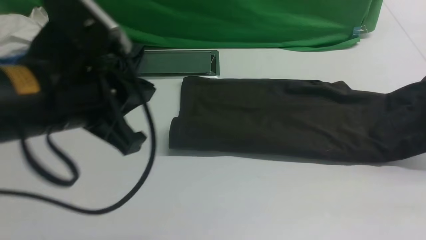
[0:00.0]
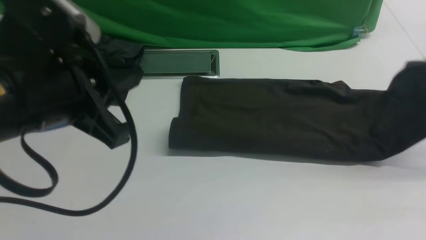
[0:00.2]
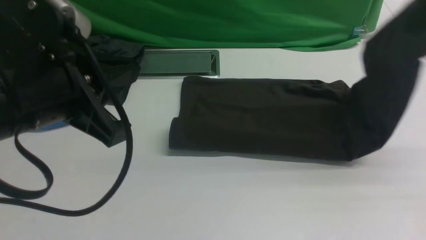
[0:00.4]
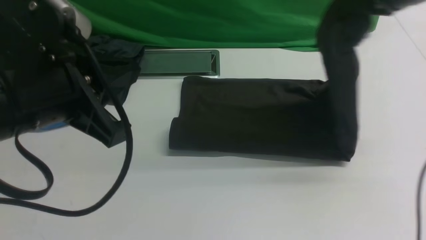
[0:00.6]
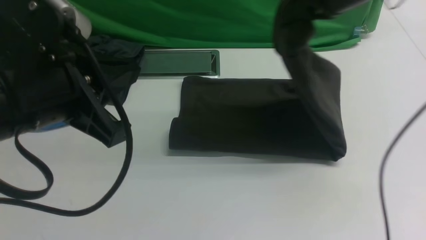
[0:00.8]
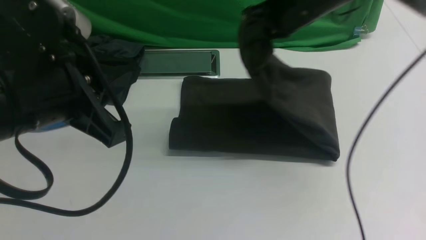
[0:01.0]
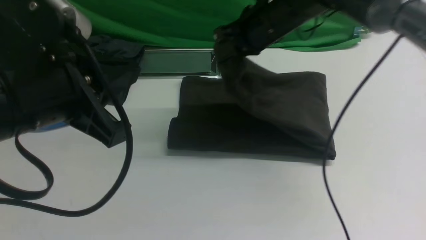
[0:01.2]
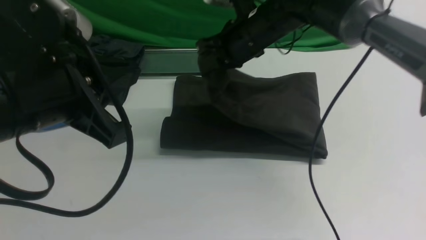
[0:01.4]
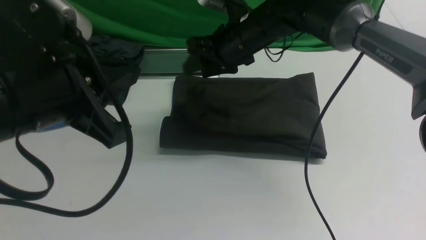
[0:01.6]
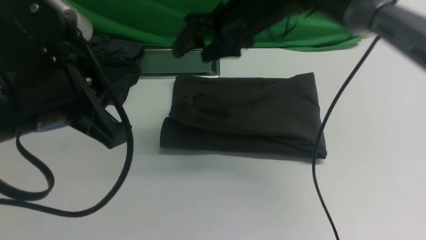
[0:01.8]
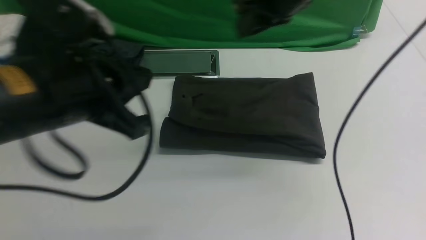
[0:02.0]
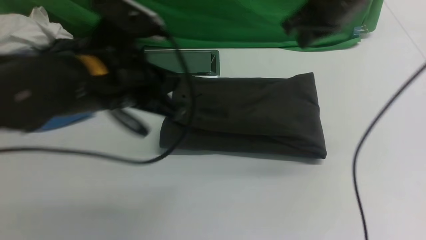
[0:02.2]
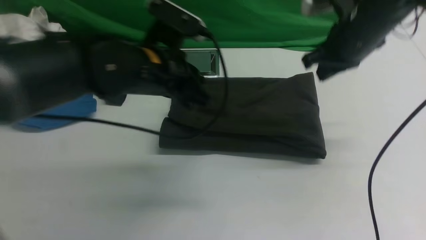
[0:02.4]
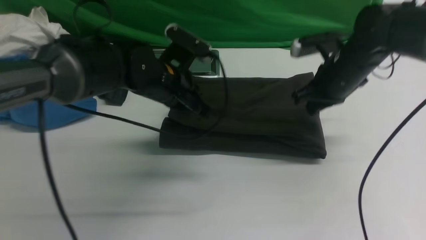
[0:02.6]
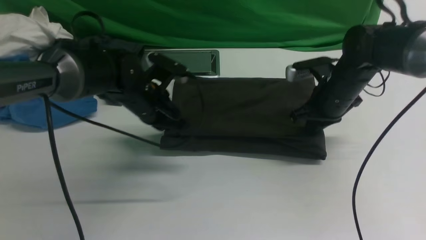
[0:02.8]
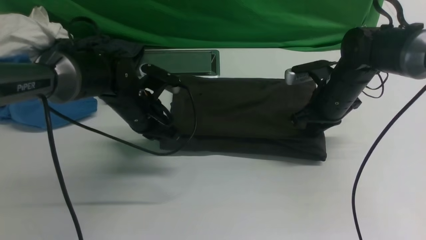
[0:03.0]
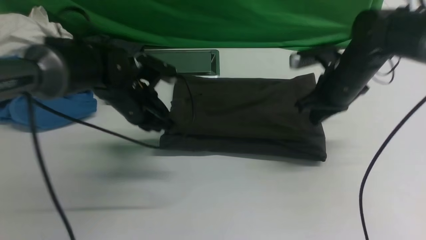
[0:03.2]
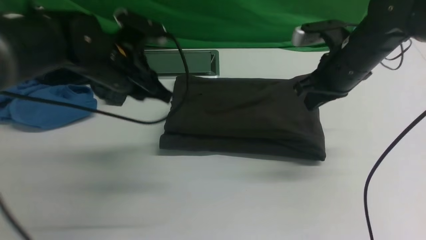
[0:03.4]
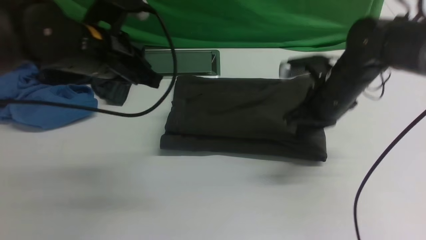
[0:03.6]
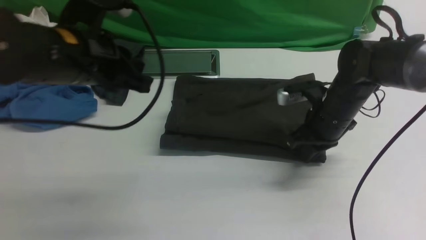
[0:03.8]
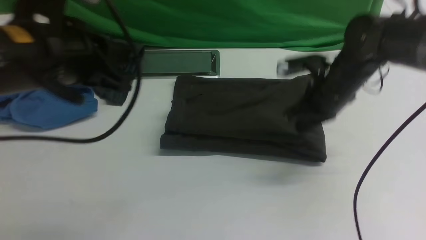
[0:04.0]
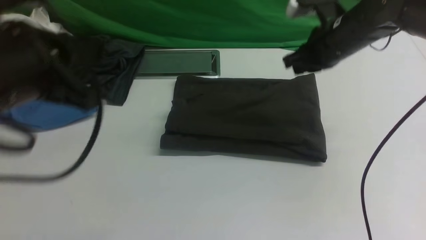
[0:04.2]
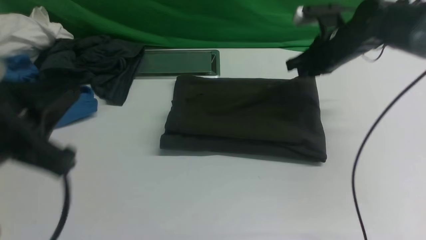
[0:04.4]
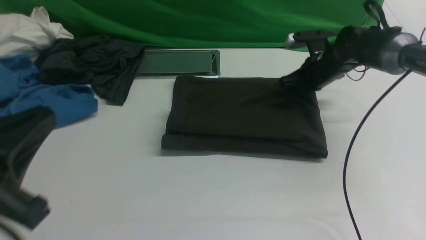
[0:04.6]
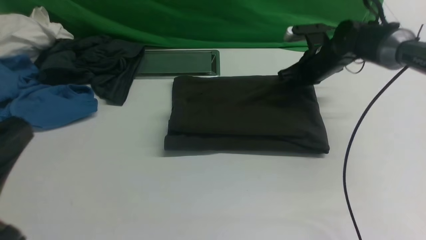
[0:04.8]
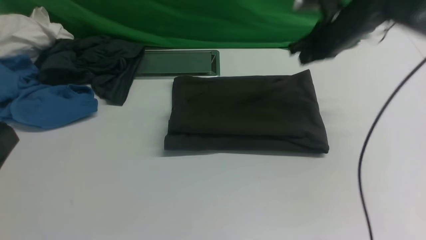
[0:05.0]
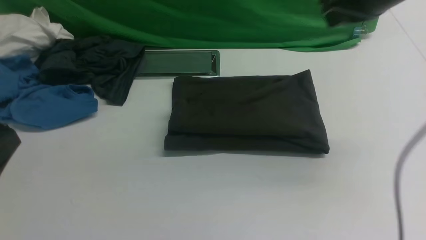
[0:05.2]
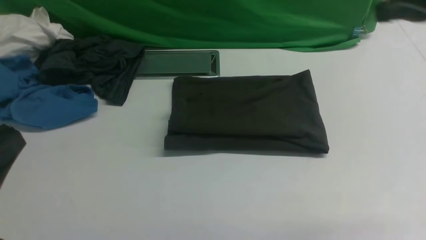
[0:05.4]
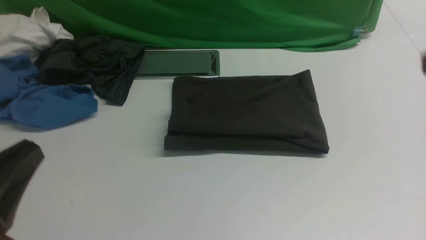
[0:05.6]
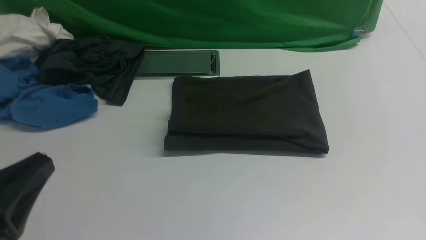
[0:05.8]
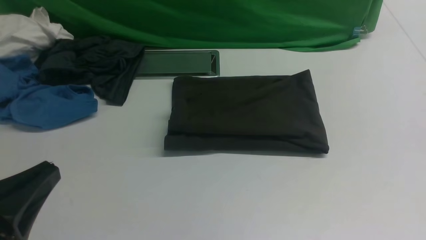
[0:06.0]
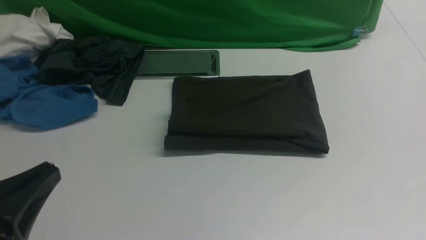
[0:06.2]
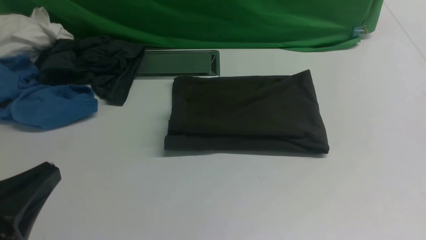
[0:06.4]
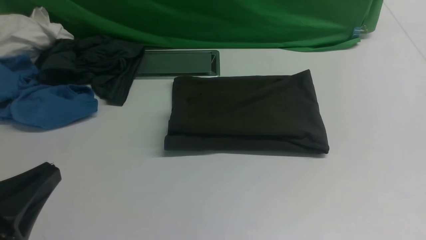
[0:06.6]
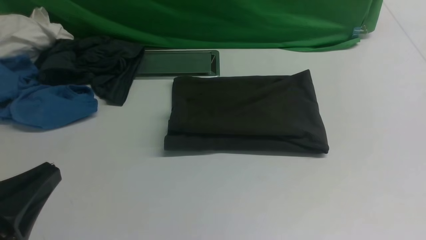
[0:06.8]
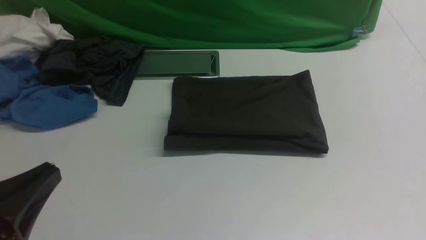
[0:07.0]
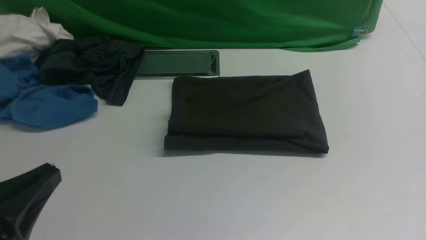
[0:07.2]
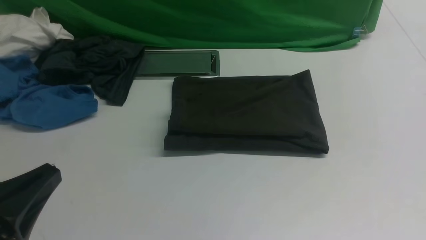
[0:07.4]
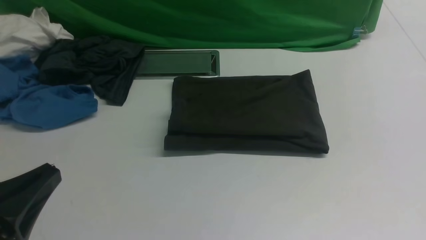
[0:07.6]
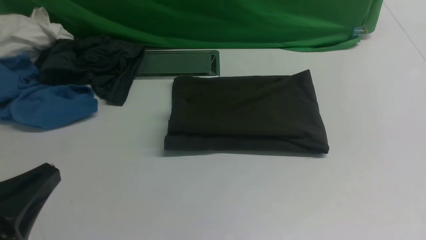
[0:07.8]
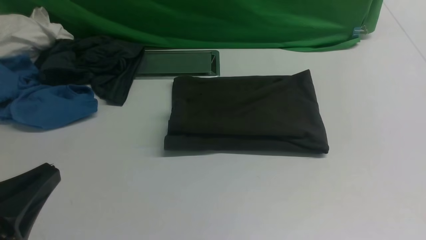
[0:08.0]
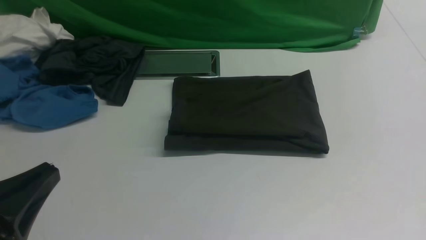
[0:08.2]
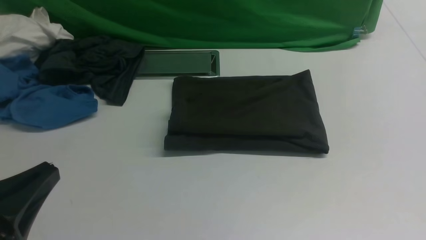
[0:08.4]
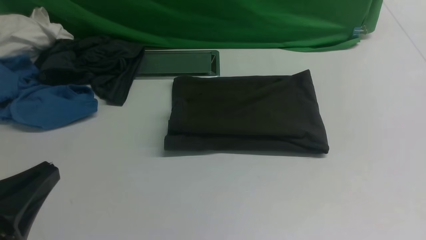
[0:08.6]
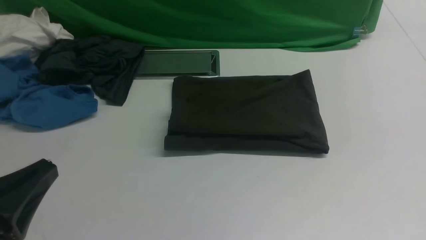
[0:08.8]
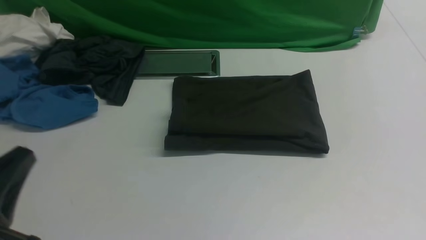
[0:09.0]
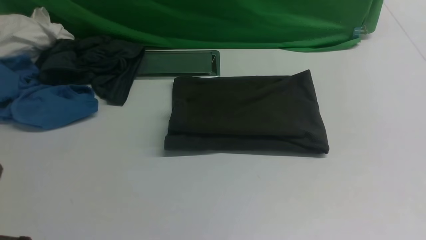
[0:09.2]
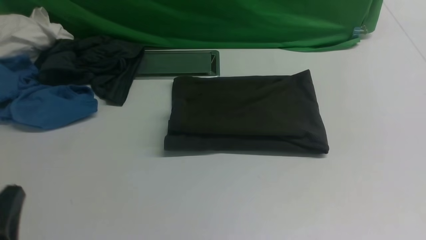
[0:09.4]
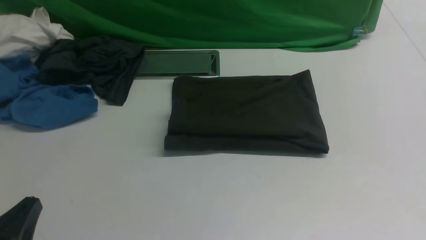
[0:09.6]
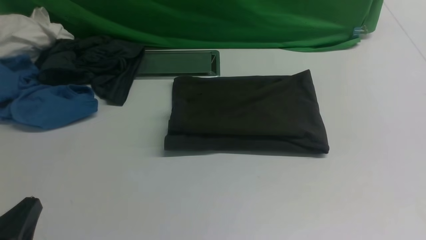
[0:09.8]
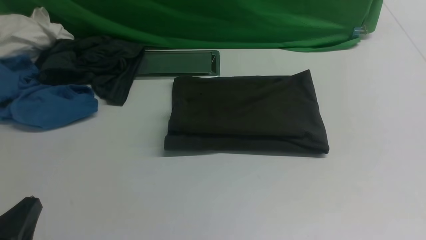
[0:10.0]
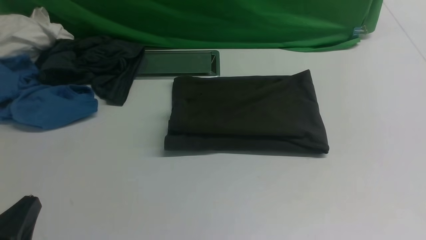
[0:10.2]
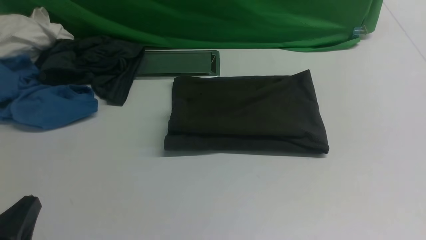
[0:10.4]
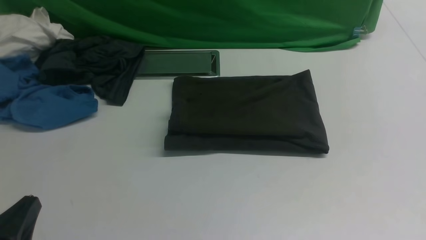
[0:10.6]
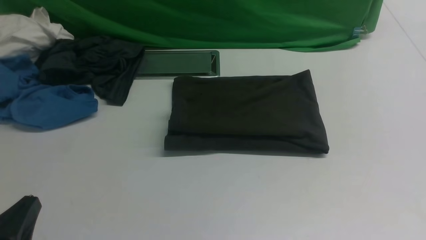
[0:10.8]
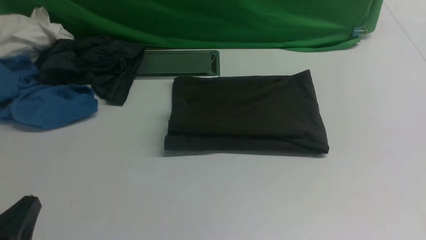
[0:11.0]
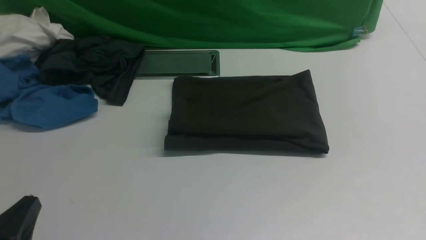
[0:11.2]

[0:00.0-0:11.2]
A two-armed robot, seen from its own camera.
Step, 0:00.0 to 0:01.8: use the right arm to drag the right edge of the fabric to the left and folds it over the left edge.
0:00.0 to 0:01.6: The right gripper heads to the left, covering approximately 40 cm, and opens.
0:01.6 to 0:03.2: The right gripper moves to the right and downward, roughly 15 cm, and closes. The left gripper goes roughly 25 cm forward and downward.
0:03.2 to 0:04.8: The right gripper heads forward, covering some 10 cm, while the left gripper shifts about 30 cm backward.
0:04.8 to 0:06.4: The left gripper ends up about 5 cm from where it was; the right gripper goes some 40 cm backward.
0:08.0 to 0:09.6: The left gripper travels downward by about 10 cm.
0:09.6 to 0:11.2: Neither gripper changes place.
